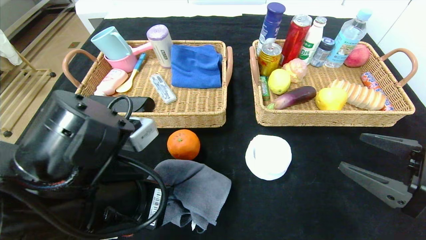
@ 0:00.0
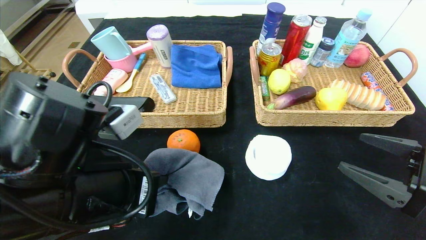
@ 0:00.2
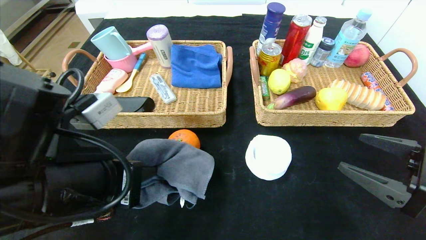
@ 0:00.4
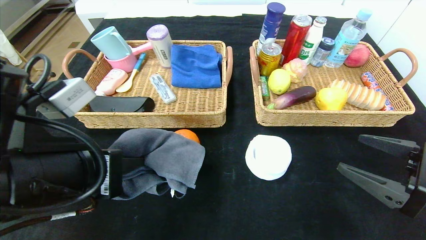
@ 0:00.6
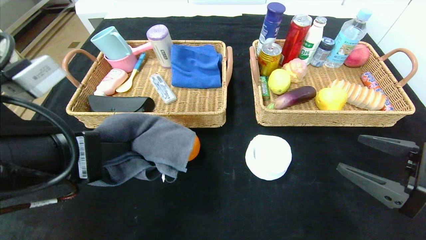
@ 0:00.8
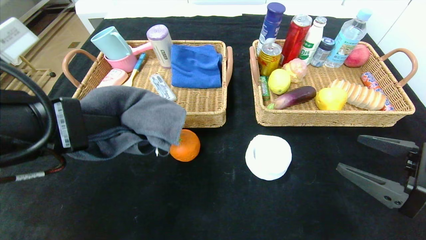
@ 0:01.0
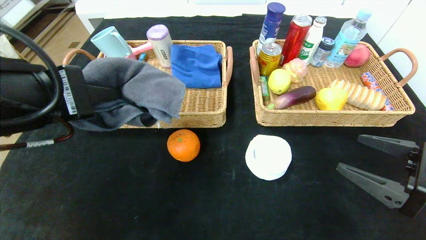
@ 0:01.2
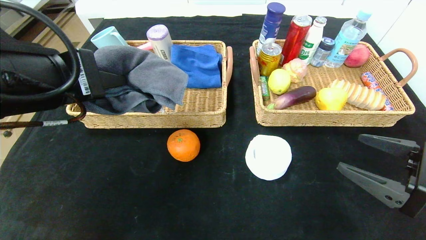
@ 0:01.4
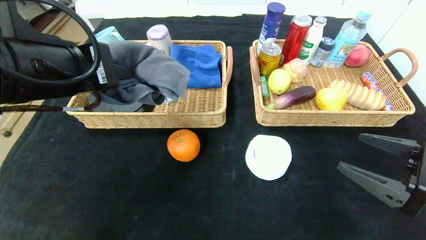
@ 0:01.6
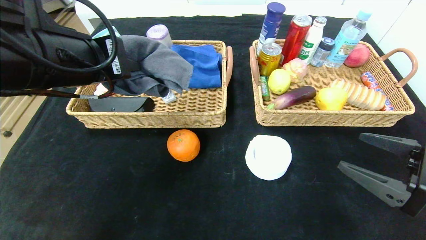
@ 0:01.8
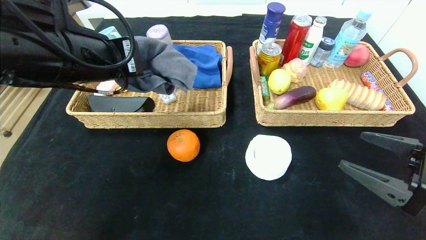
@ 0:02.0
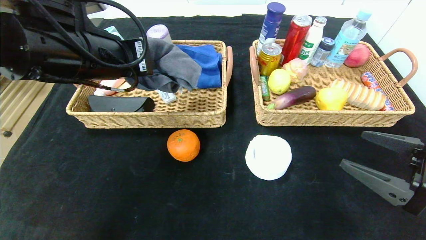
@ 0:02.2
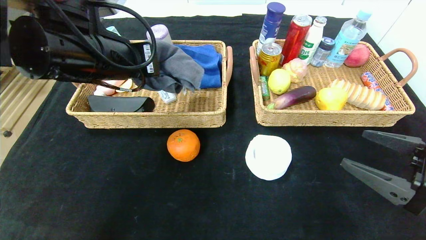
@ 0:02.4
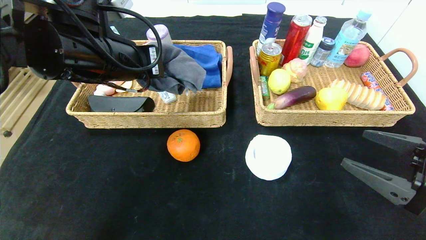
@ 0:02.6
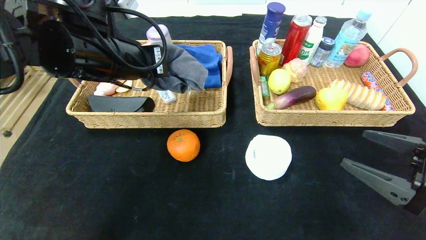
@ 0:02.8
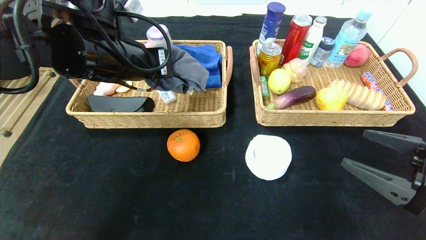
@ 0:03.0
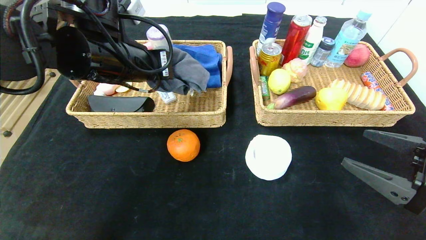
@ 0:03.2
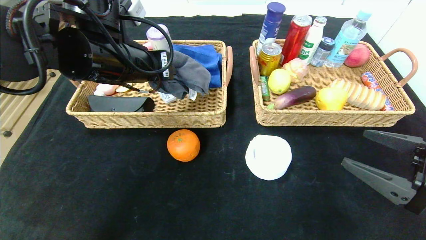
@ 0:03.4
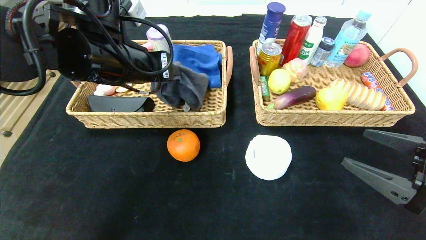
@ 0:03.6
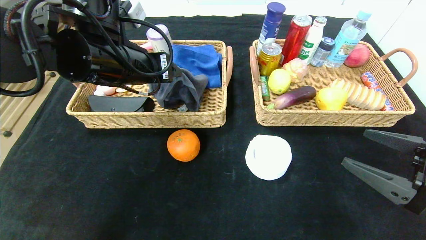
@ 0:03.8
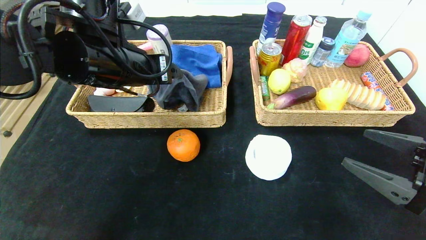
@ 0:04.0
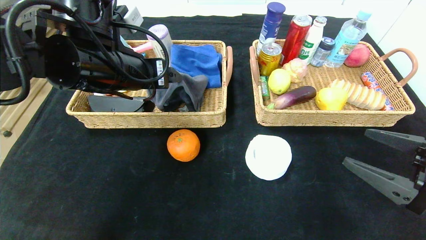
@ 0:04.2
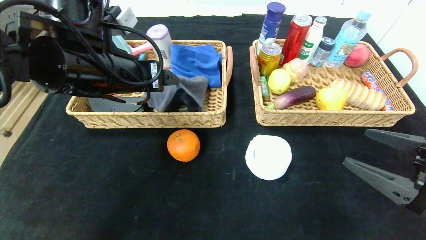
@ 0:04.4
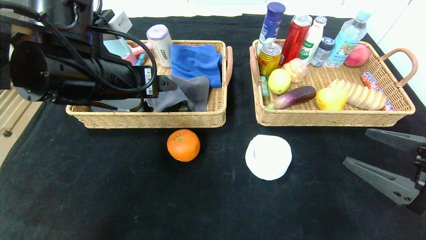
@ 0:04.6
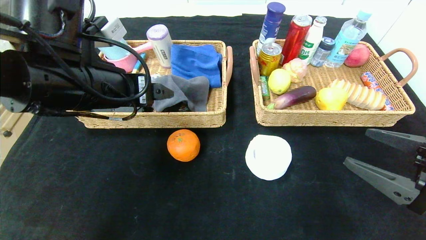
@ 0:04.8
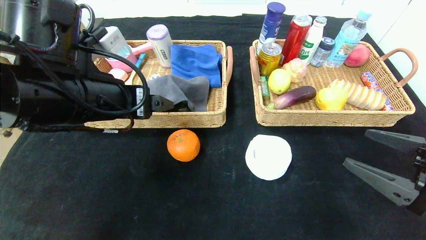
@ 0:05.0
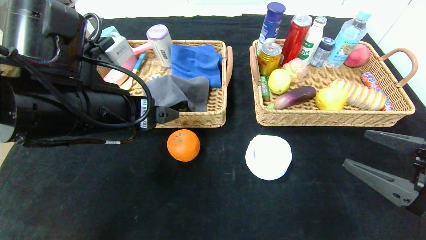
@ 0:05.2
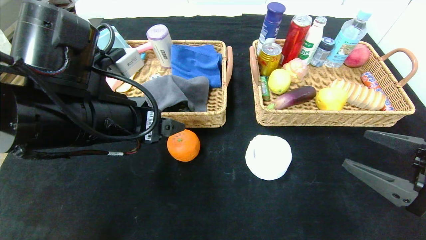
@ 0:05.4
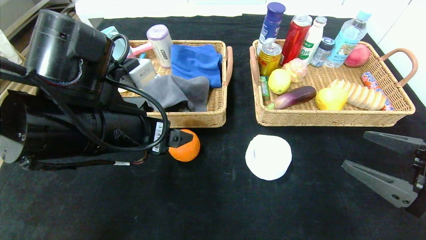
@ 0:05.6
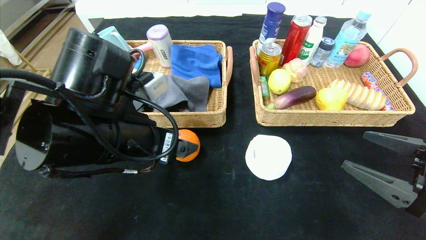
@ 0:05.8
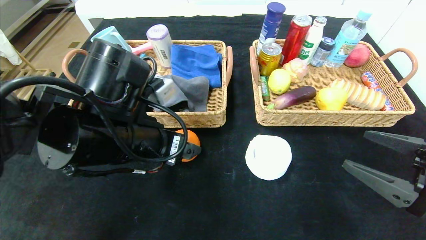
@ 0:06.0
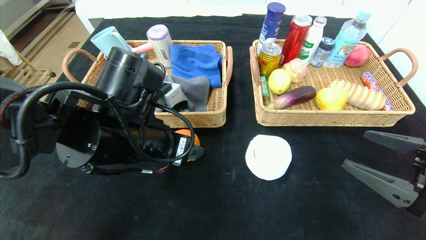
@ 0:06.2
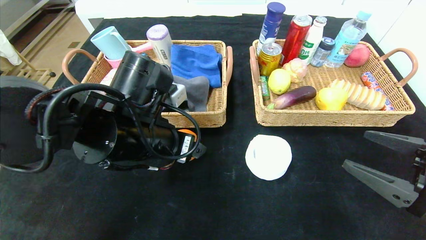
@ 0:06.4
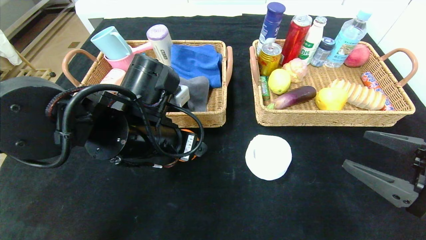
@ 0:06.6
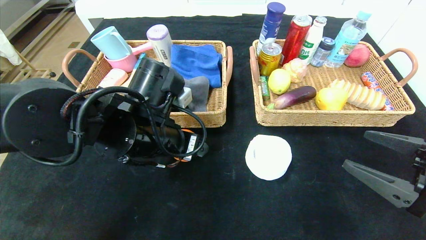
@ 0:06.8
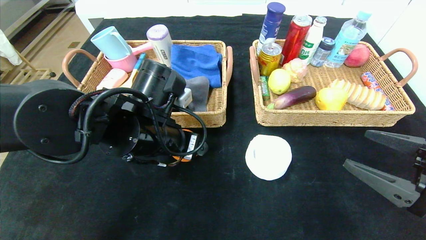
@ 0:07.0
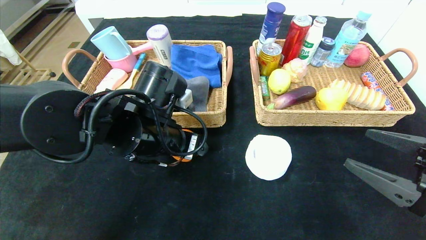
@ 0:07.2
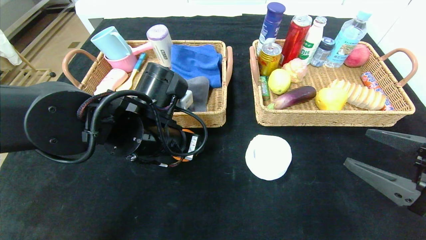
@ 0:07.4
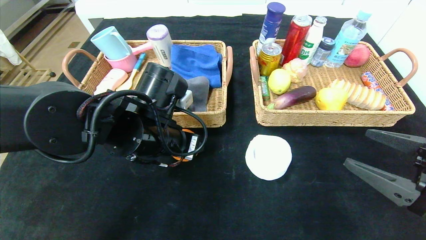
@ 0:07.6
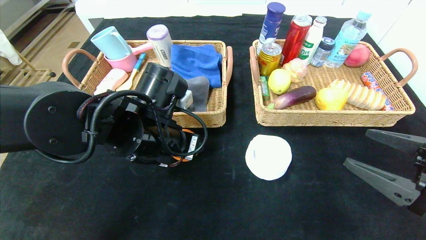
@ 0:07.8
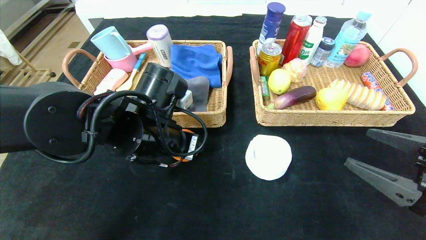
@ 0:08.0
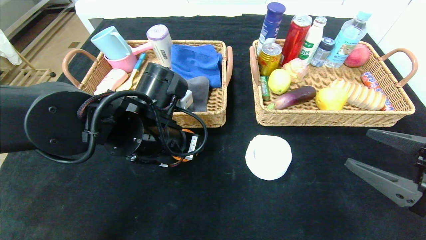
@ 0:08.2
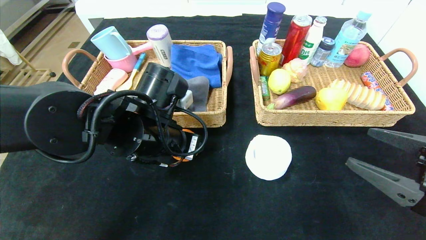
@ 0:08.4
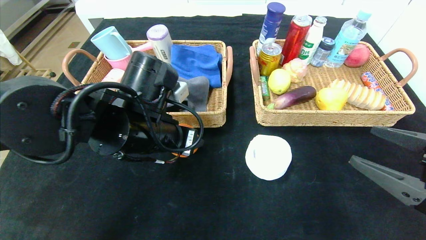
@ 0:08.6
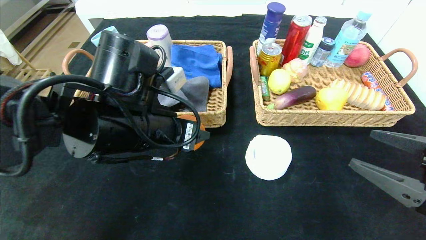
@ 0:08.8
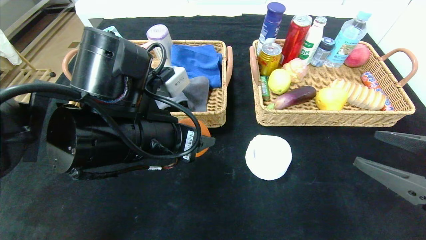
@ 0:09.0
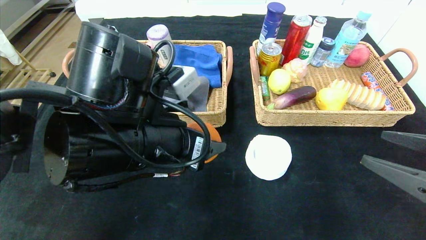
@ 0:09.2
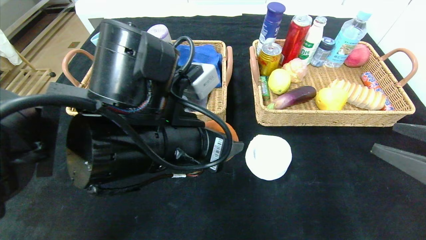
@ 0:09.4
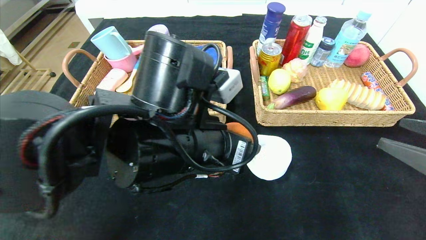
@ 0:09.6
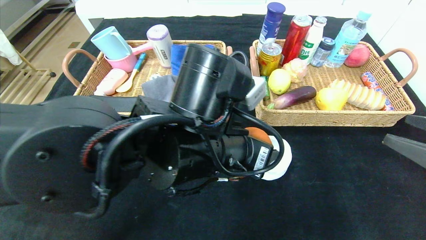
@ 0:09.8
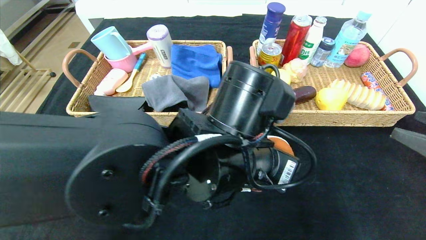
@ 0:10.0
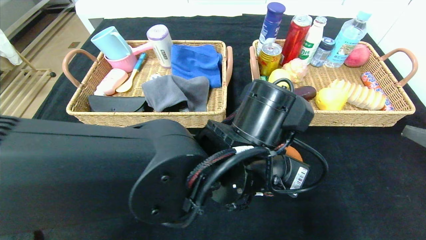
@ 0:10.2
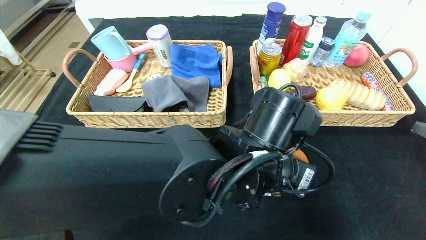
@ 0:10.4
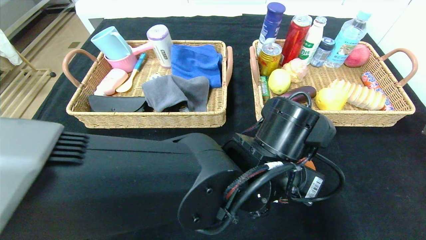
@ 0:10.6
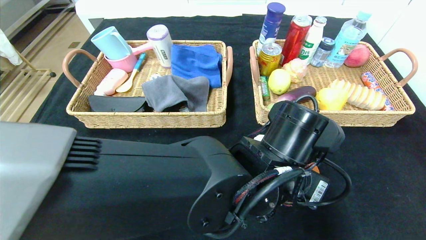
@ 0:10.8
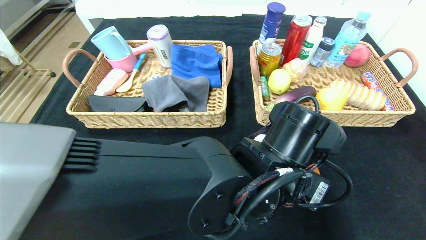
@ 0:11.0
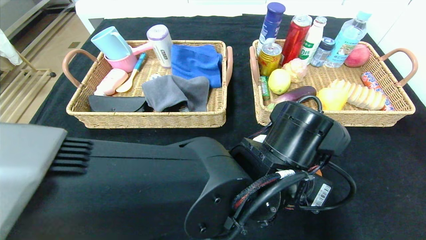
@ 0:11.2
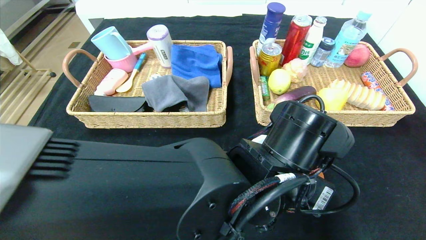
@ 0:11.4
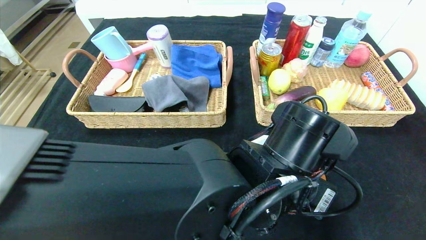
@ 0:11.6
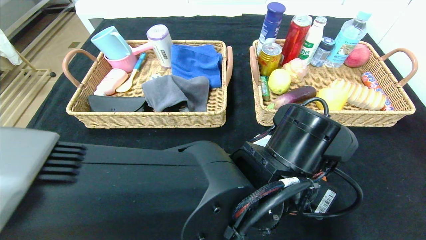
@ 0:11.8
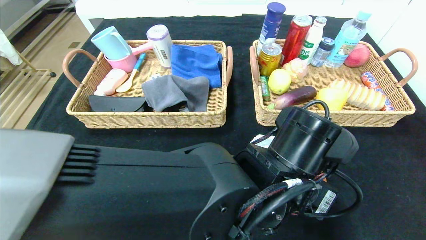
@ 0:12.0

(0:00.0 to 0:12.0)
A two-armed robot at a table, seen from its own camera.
Step, 0:00.0 - 0:04.8: Grasp the gray towel and put it in the left basket.
0:00.0 - 0:01.6: The left gripper heads upward and to the left, covering roughly 15 cm.
0:01.6 - 0:03.0: The left gripper heads forward, covering about 10 cm.
0:03.0 - 0:04.4: The left gripper opens its fingers.
0:04.4 - 0:06.0: The left gripper moves downward and backward, approximately 10 cm.
0:06.0 - 0:07.6: The left gripper ends up roughly 5 cm from where it was.
0:07.6 - 0:09.0: The left gripper shifts approximately 5 cm backward.
0:09.0 - 0:10.4: The left gripper heads to the right, covering about 15 cm. The right gripper travels upward by some 5 cm.

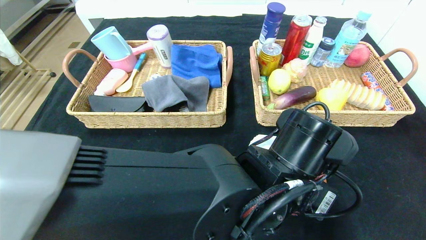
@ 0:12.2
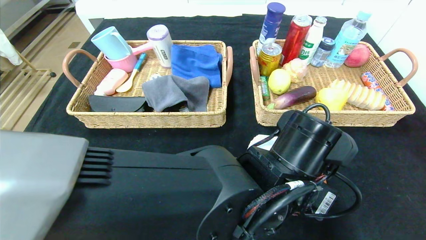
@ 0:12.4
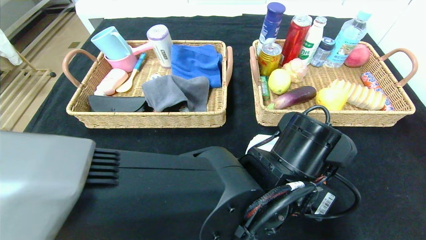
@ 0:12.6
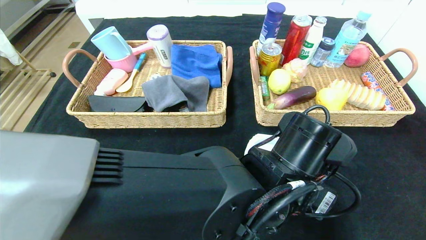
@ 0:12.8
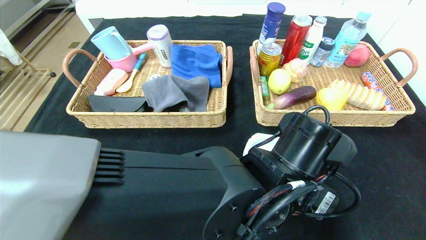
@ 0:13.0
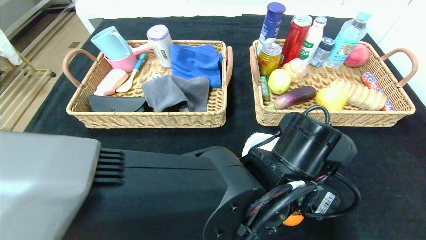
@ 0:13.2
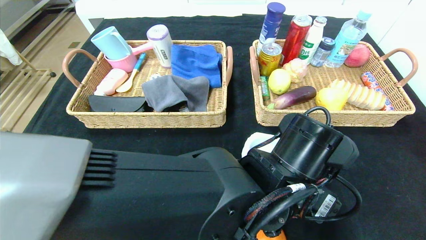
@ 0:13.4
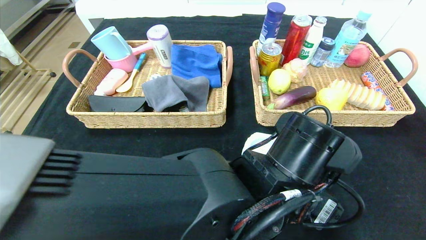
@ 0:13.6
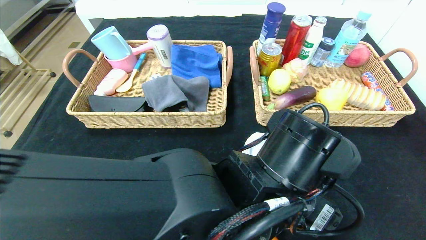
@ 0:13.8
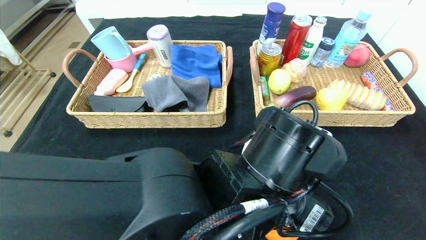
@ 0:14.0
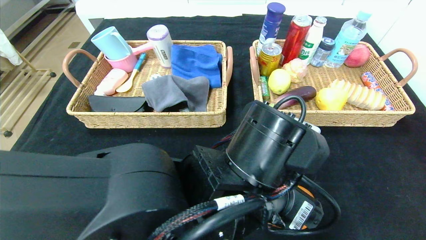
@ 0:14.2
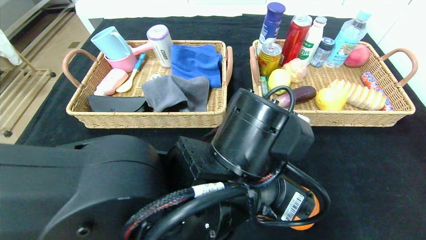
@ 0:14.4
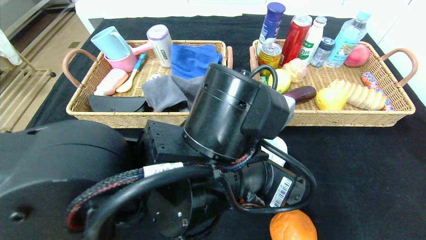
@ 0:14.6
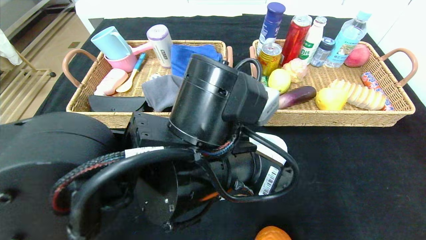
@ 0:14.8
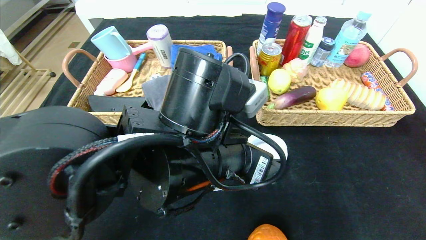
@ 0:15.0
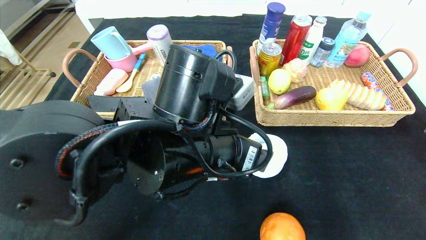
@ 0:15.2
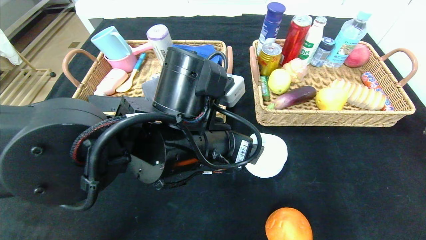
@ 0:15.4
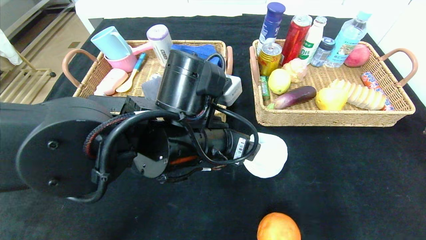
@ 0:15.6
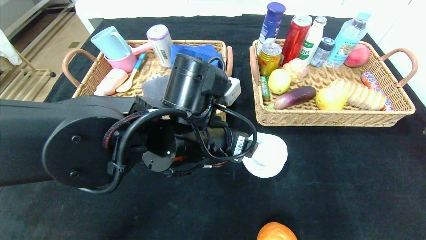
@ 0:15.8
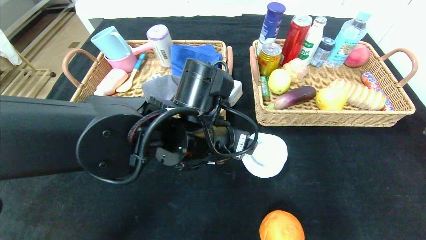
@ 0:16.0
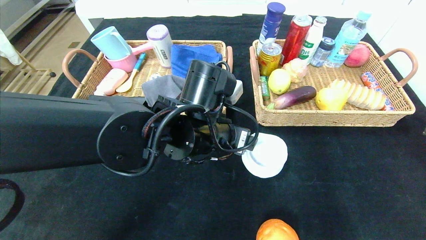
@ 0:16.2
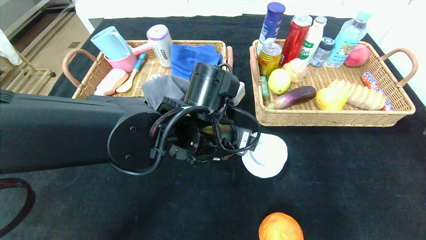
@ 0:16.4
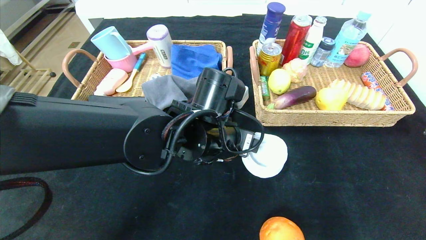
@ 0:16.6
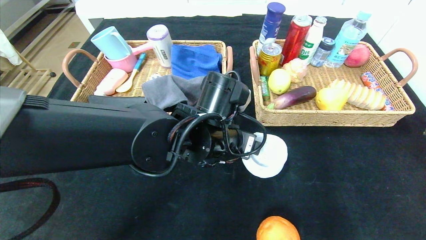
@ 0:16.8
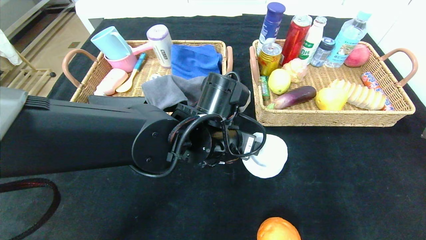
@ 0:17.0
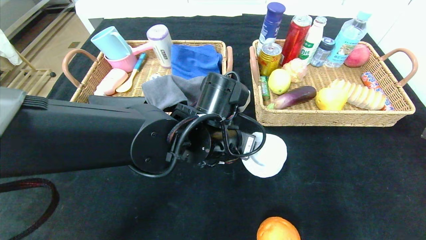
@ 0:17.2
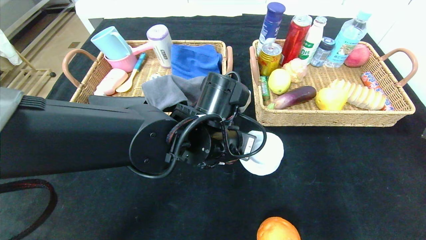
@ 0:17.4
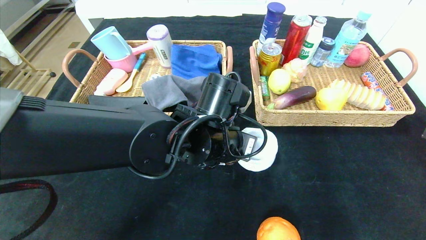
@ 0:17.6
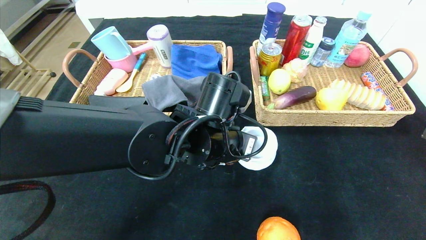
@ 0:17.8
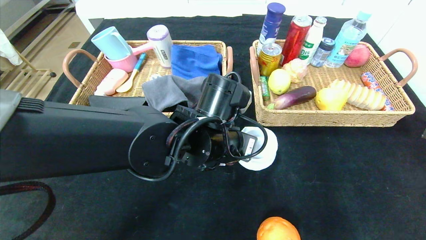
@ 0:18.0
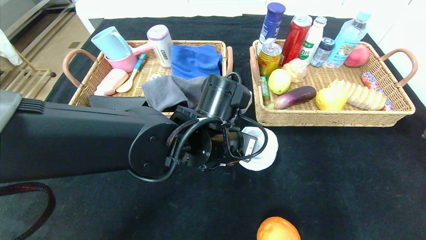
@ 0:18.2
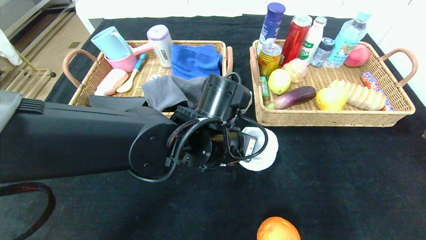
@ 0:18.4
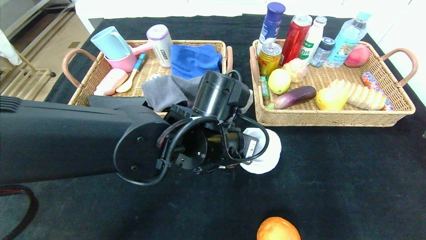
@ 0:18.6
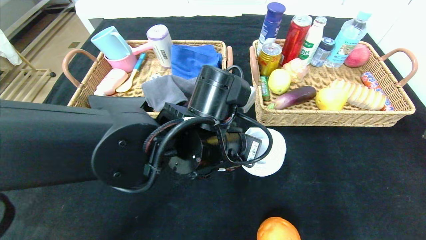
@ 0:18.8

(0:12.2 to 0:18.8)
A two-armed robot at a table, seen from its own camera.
0:12.2 - 0:13.8: The grippers move only a little.
0:13.8 - 0:15.4: The left gripper heads to the left, covering some 10 cm.
0:15.4 - 0:17.2: The left gripper is displaced forward by roughly 5 cm.
0:17.2 - 0:18.8: The left gripper closes.
